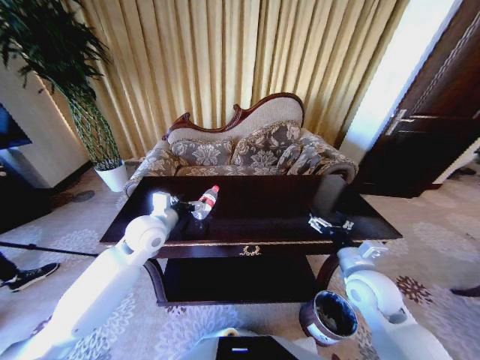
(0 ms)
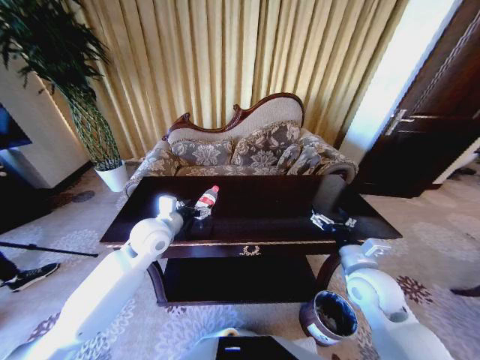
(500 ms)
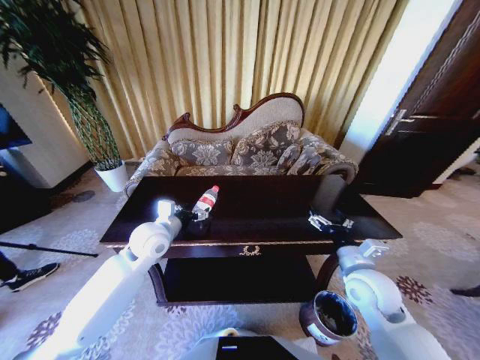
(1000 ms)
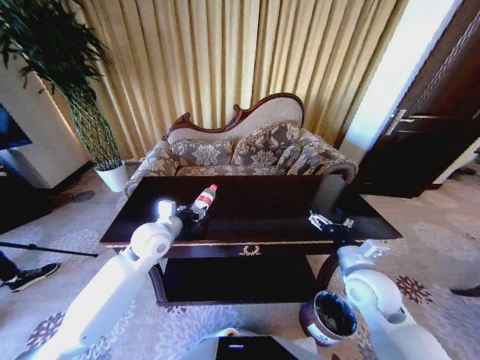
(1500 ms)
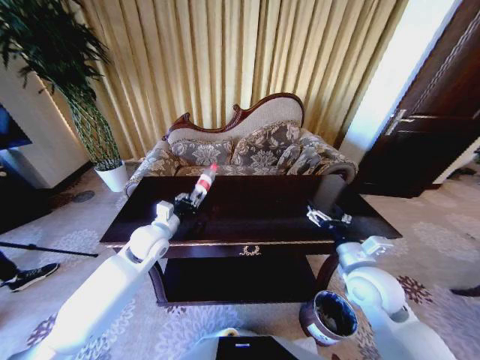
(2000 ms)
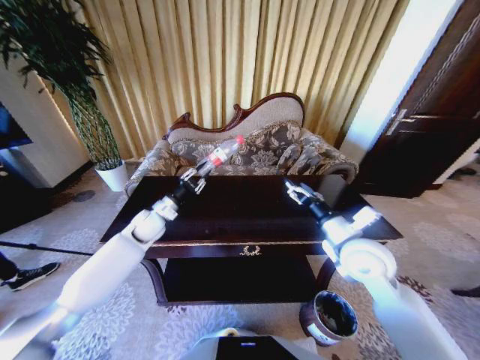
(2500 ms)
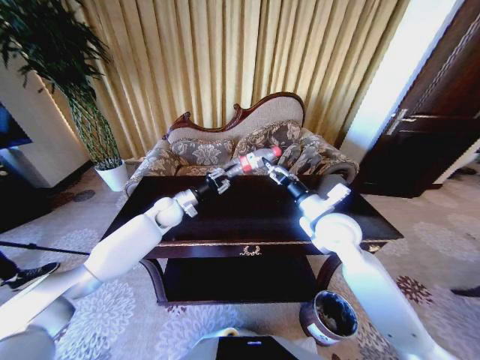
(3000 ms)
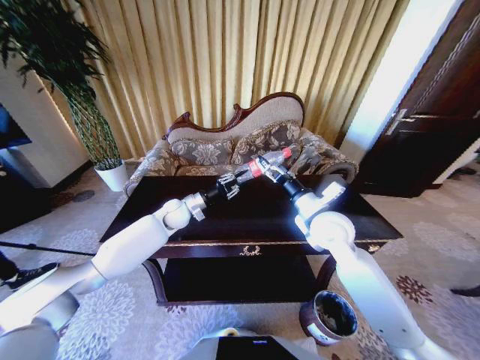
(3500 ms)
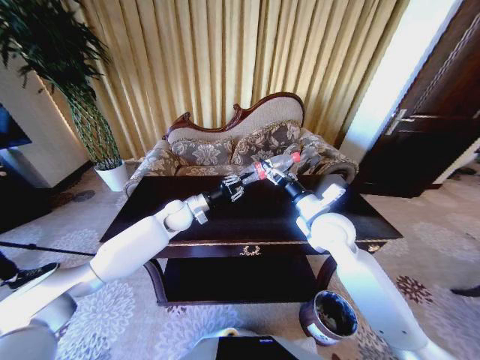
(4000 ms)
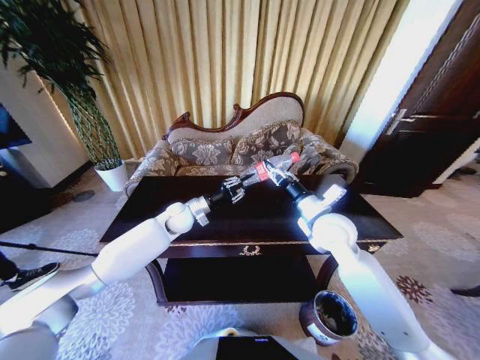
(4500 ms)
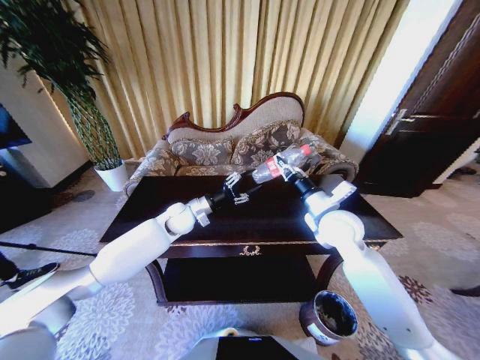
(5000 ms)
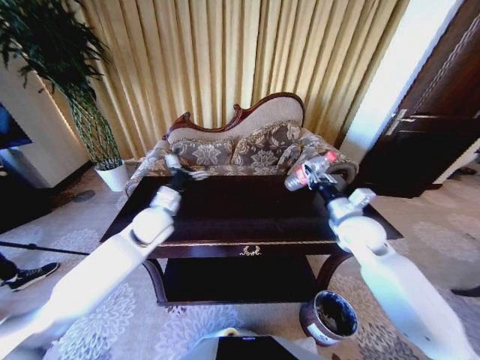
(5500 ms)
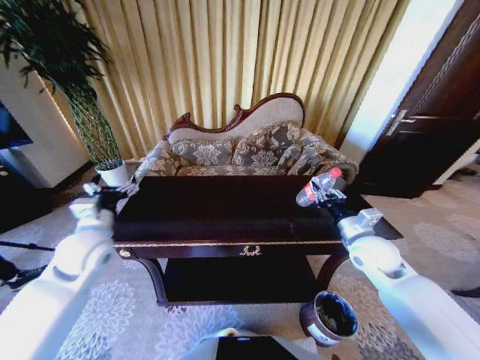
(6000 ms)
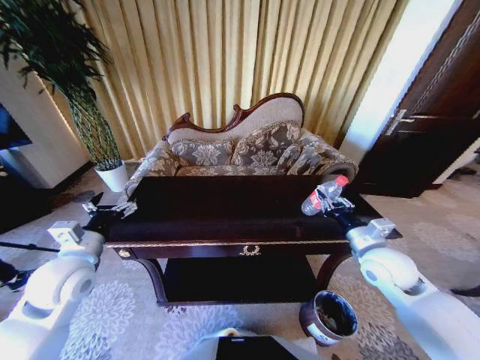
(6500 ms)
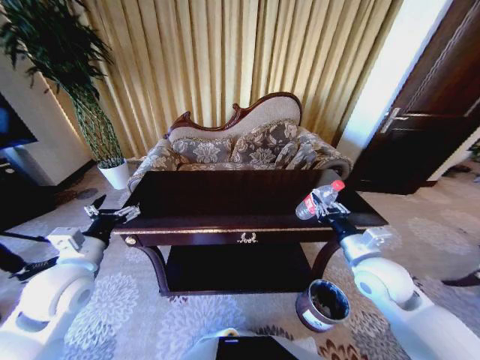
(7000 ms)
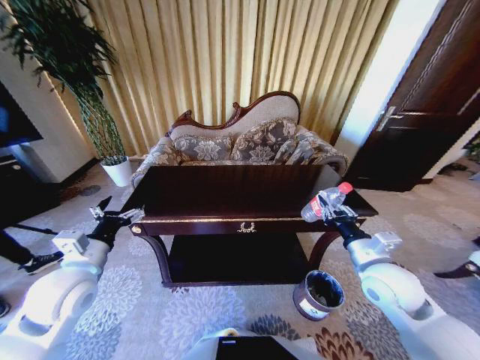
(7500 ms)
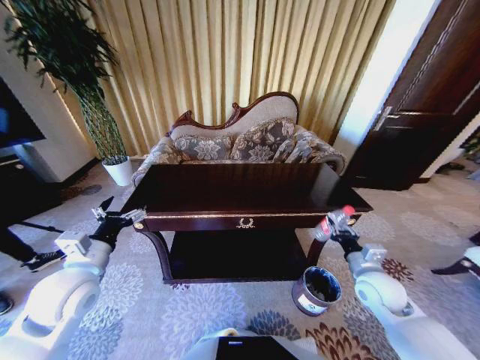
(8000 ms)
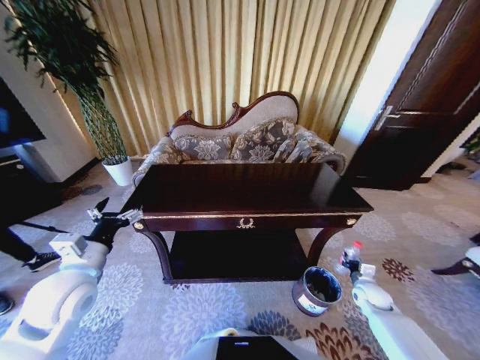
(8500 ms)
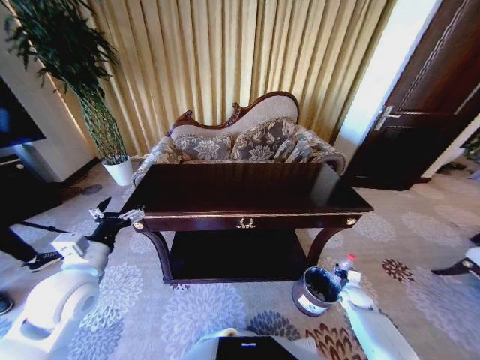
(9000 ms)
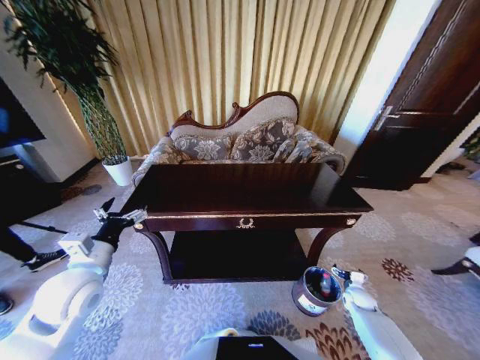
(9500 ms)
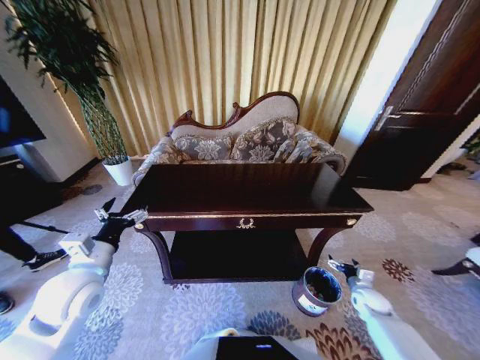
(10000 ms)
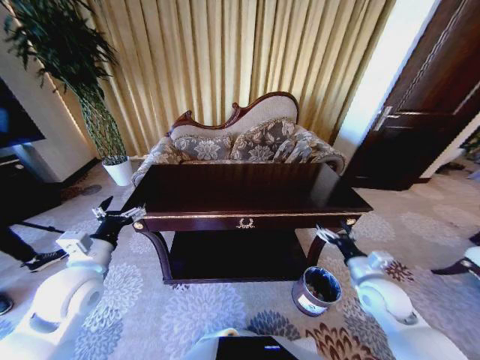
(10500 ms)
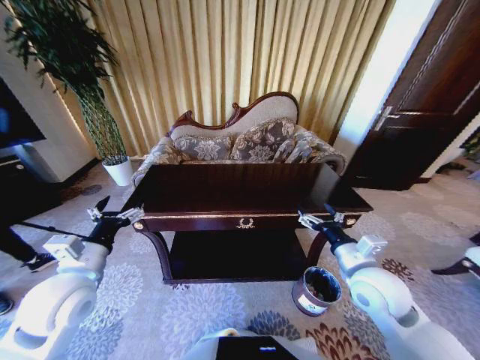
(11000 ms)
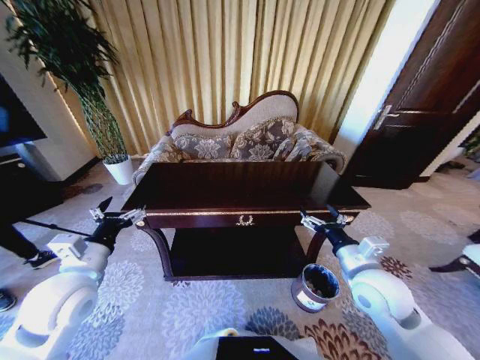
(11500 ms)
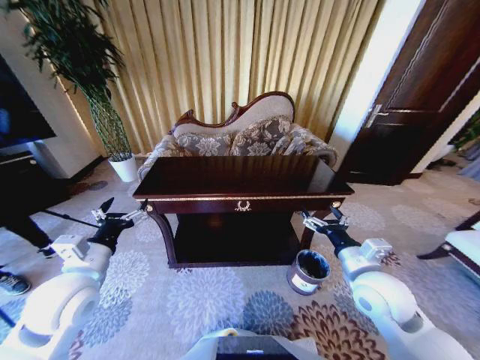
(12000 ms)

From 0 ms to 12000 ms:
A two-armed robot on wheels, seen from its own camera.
Task of the whole recording: Move to the front of the table and place the trash on the table into the trash bin.
From 0 ms to 2000 ms: The left gripper goes approximately 5 cm downward, and closes.
From 2000 ms to 4000 ms: The left gripper heads forward and to the right, covering roughly 10 cm. Meanwhile the right gripper shifts roughly 15 cm forward, to the left and upward.
From 4000 ms to 6000 ms: The right gripper heads to the right and downward, covering roughly 15 cm, and closes up; the left gripper is displaced backward, to the left and upward by about 25 cm, and opens.
From 6000 ms to 8000 ms: The left gripper travels backward by about 5 cm, while the right gripper shifts some 10 cm downward and backward.
From 8000 ms to 10000 ms: The right gripper moves downward and to the right, about 20 cm, and opens its fingers.
From 10000 ms to 12000 ms: The right gripper is displaced upward and to the left by some 35 cm.

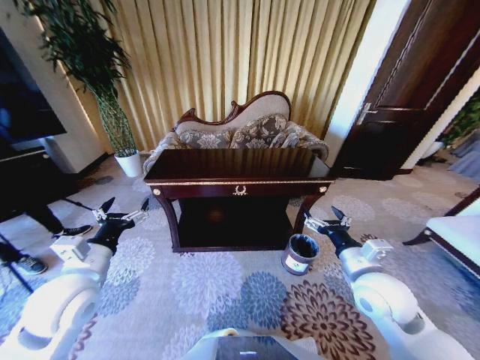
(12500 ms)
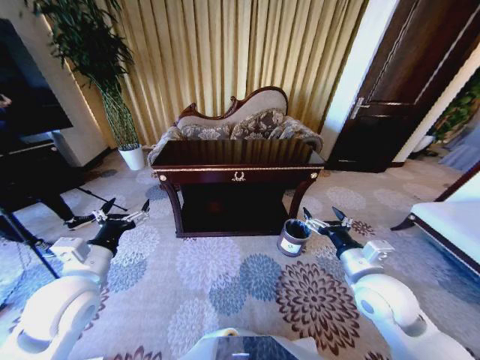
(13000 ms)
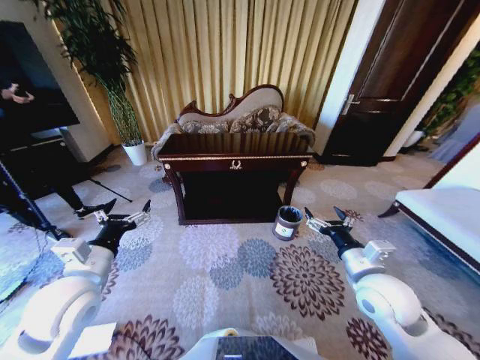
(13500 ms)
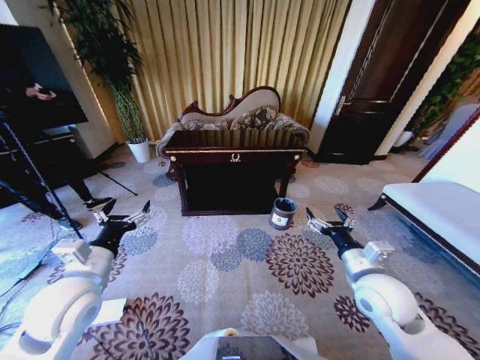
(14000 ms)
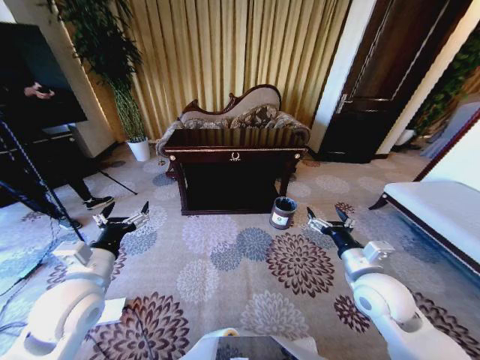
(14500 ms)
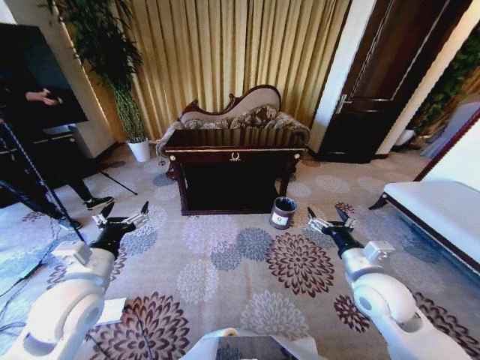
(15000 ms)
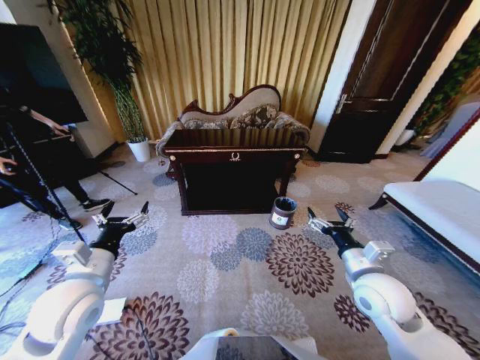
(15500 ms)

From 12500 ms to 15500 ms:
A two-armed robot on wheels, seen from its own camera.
Task of the whole recording: Move to the front of the table and place the trash on the table into the trash bin.
From 14000 ms to 15500 ms: Both grippers stay about where they are.

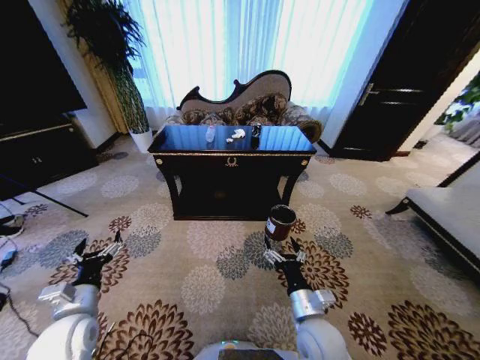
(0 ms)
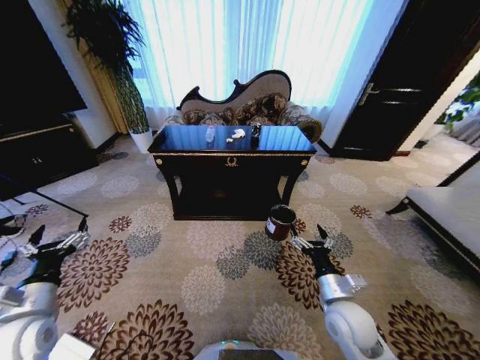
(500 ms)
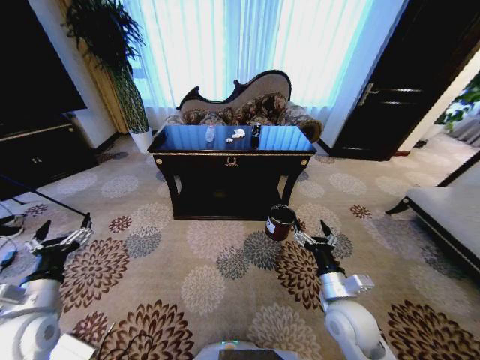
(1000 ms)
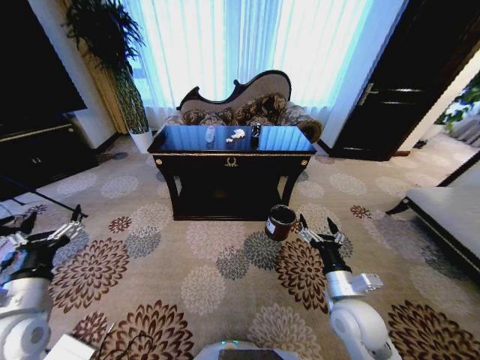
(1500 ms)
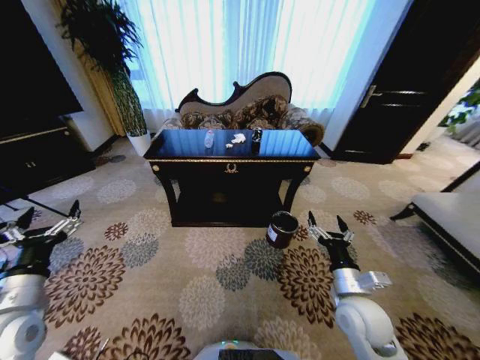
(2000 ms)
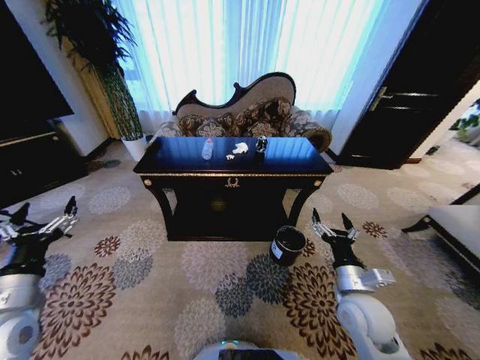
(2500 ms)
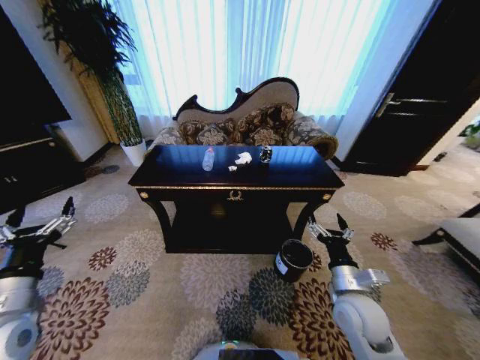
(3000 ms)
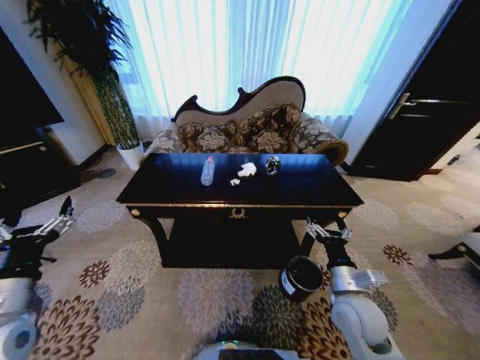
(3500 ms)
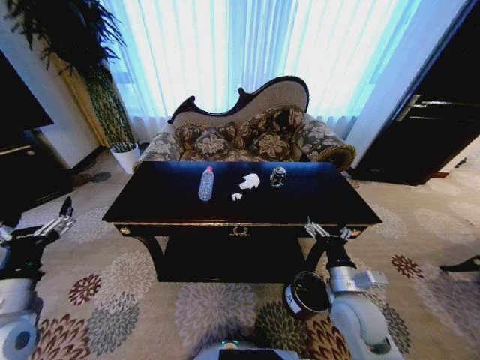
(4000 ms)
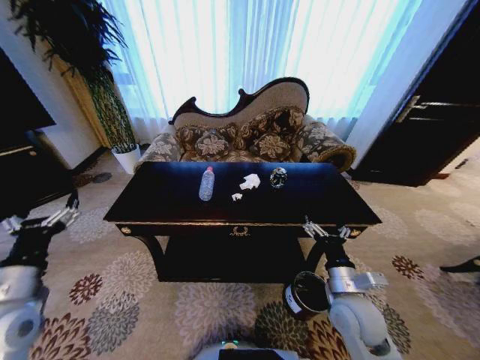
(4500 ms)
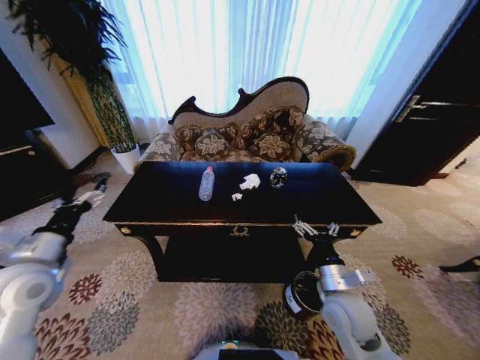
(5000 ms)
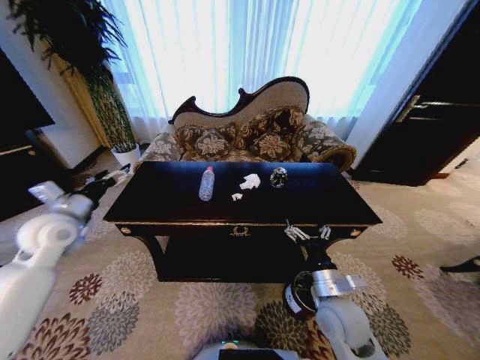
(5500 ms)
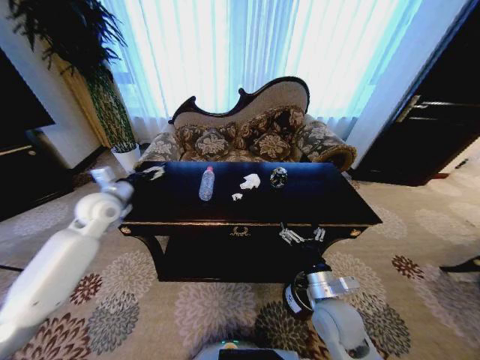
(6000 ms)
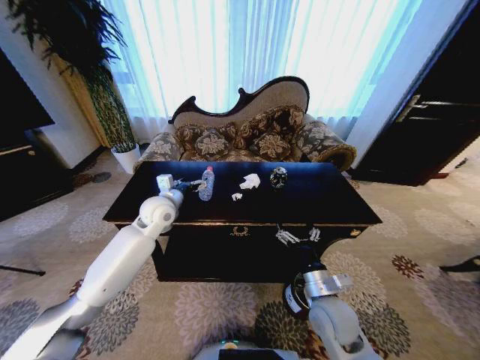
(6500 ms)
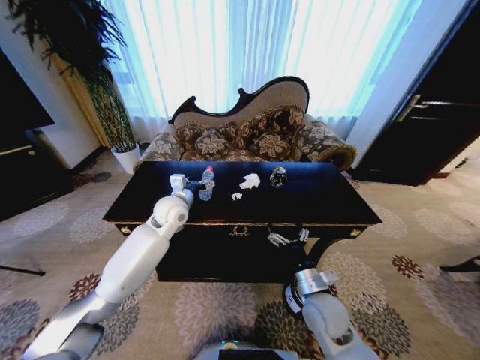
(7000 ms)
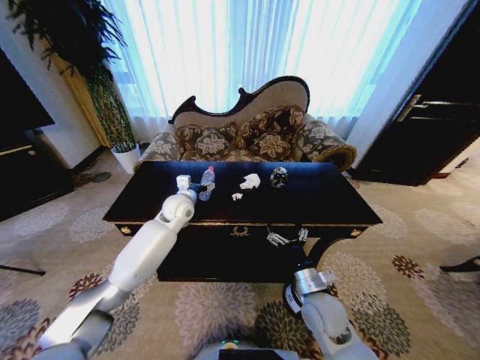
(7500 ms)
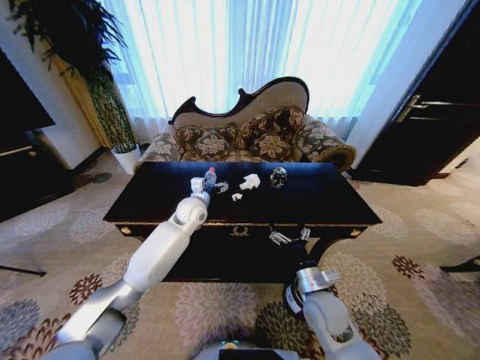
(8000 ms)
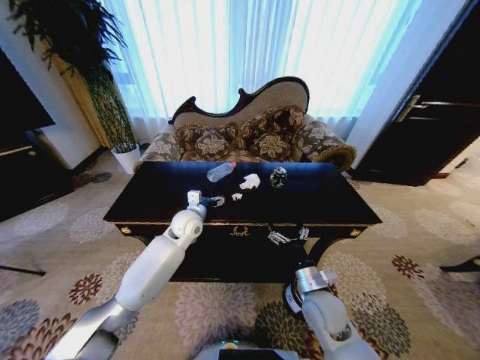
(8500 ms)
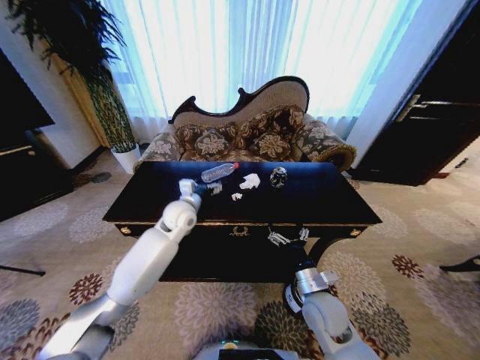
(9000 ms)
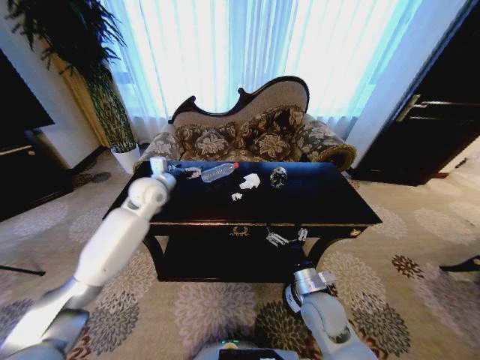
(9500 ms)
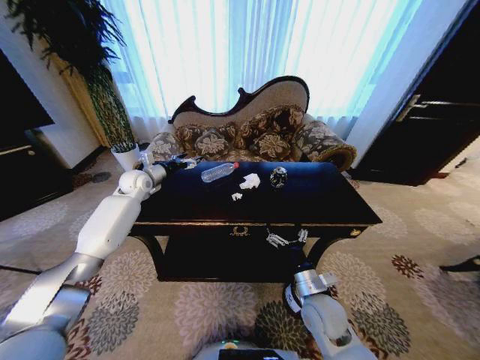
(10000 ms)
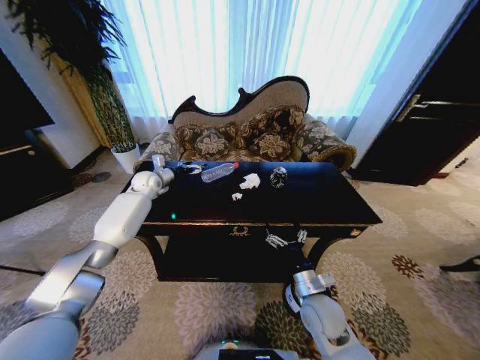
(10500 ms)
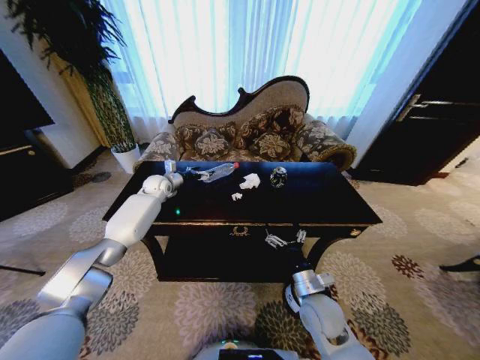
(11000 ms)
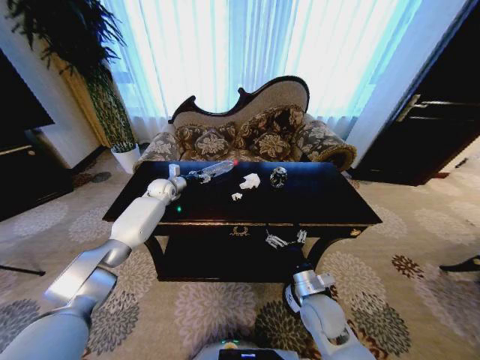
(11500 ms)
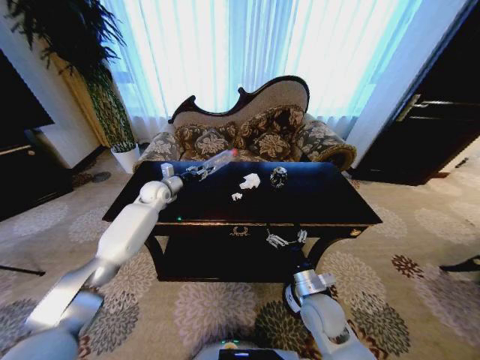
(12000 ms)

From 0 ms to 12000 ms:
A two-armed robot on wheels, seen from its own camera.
Task of the whole recording: Move to the front of the table and place the trash on the table into the trash bin.
From 4000 ms to 6000 ms: The left gripper shifts about 30 cm forward.
From 6000 ms to 8000 ms: The left gripper is displaced to the right by roughly 20 cm.
From 8000 ms to 10000 ms: The left gripper is displaced to the left and forward by roughly 20 cm.
From 10000 ms to 12000 ms: The left gripper is displaced to the right by about 5 cm, and closes.
